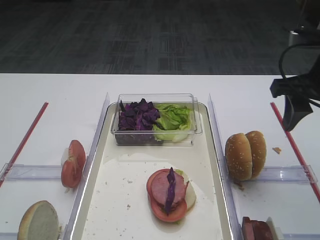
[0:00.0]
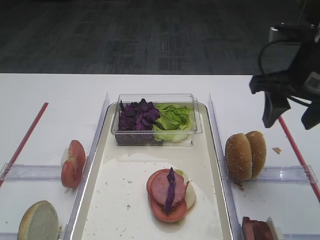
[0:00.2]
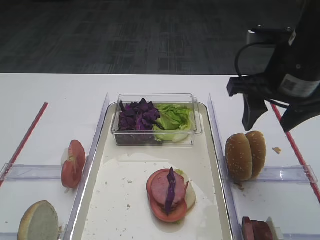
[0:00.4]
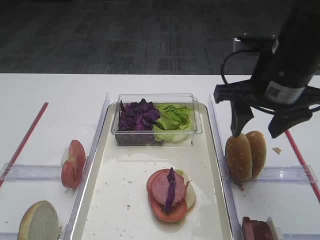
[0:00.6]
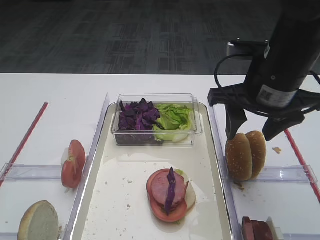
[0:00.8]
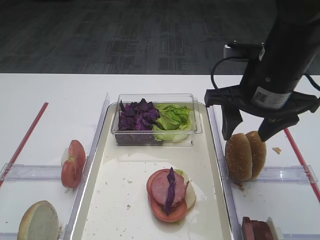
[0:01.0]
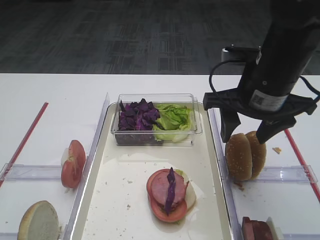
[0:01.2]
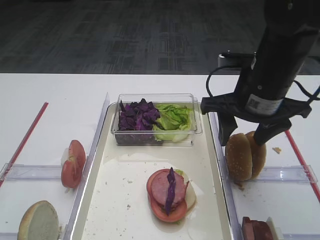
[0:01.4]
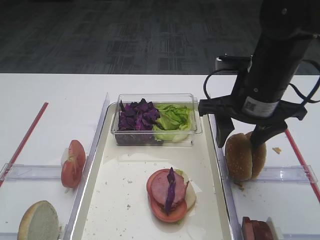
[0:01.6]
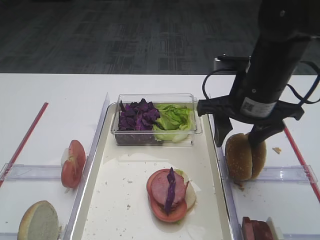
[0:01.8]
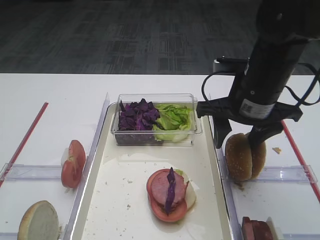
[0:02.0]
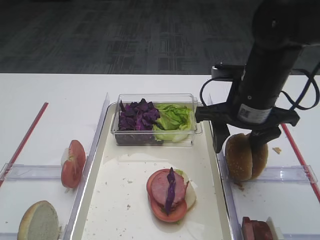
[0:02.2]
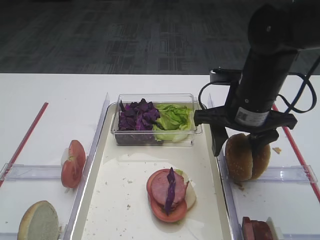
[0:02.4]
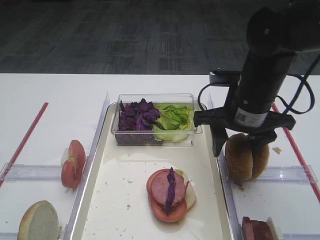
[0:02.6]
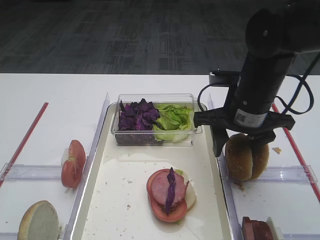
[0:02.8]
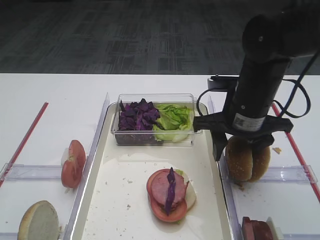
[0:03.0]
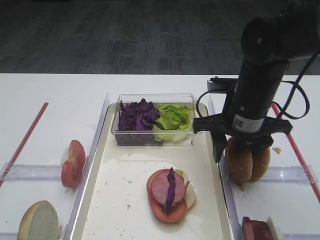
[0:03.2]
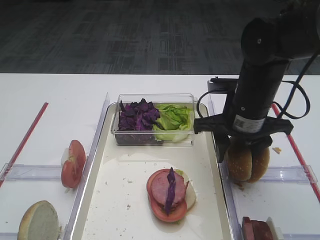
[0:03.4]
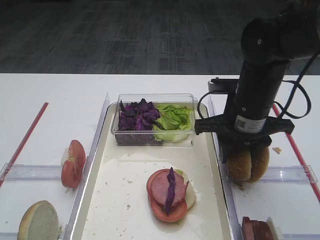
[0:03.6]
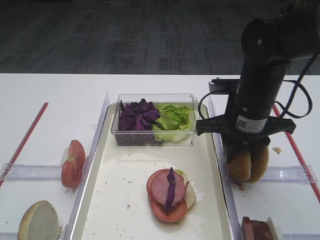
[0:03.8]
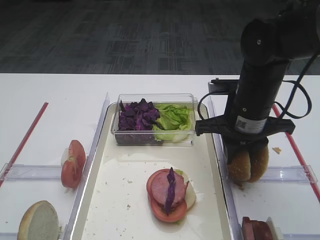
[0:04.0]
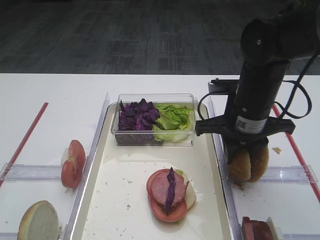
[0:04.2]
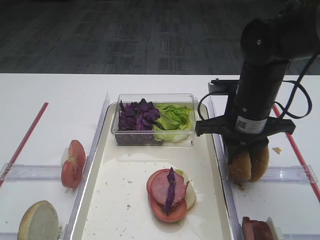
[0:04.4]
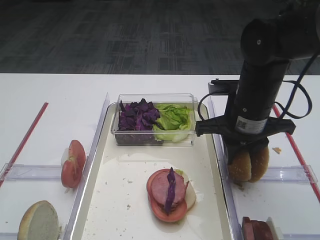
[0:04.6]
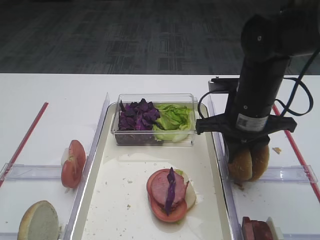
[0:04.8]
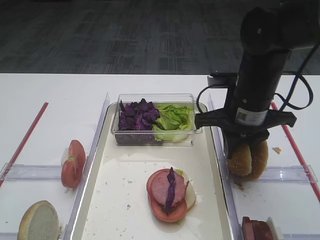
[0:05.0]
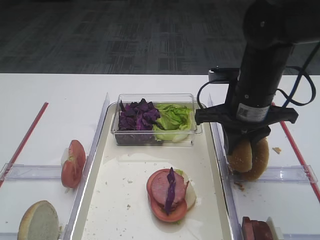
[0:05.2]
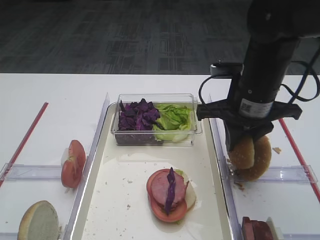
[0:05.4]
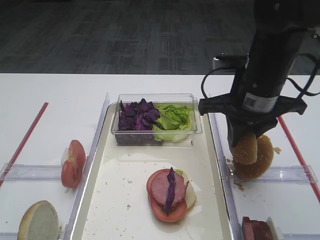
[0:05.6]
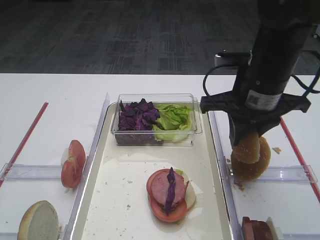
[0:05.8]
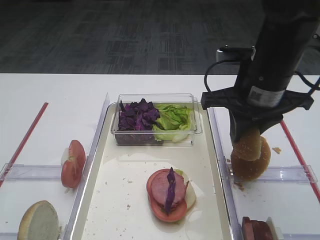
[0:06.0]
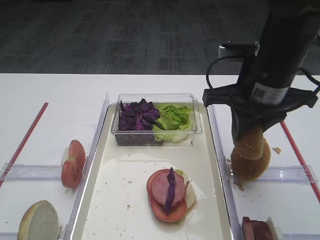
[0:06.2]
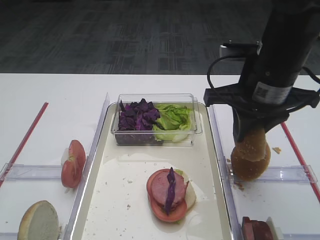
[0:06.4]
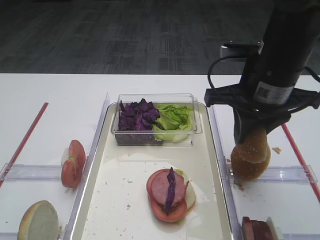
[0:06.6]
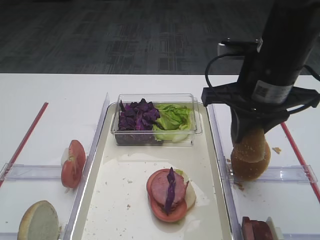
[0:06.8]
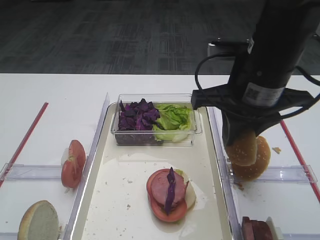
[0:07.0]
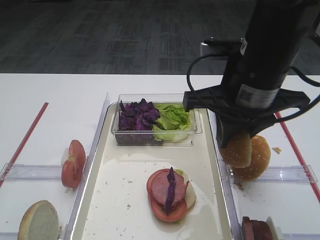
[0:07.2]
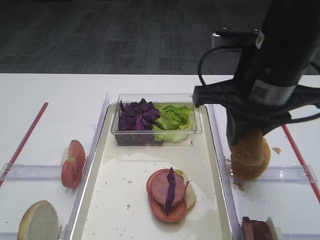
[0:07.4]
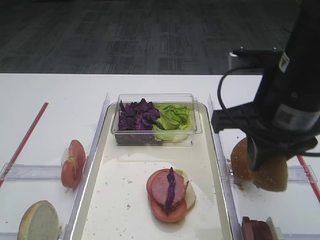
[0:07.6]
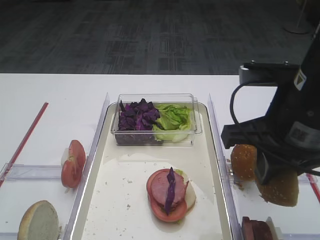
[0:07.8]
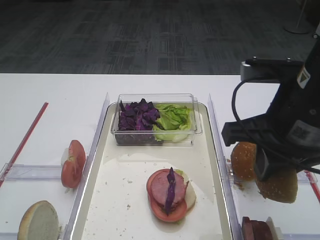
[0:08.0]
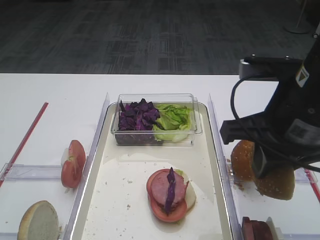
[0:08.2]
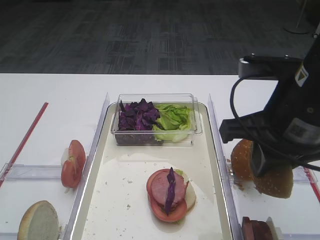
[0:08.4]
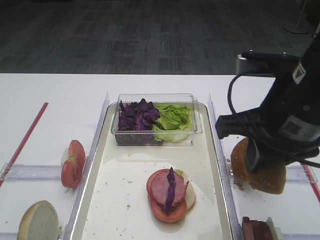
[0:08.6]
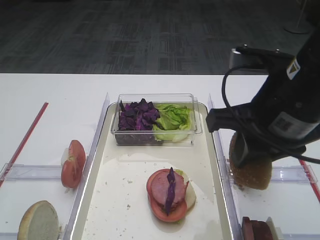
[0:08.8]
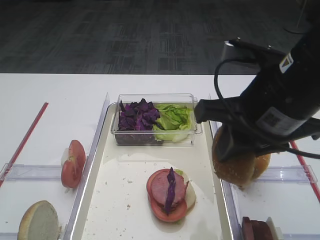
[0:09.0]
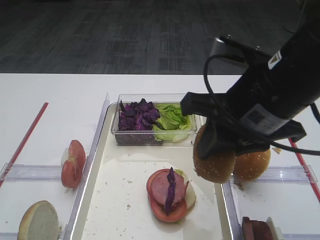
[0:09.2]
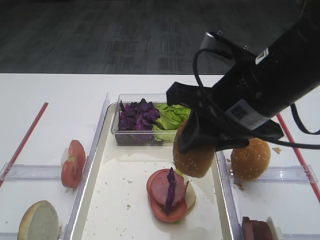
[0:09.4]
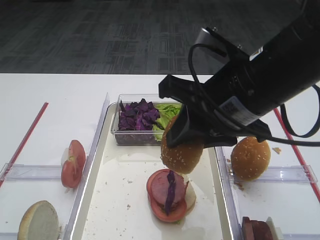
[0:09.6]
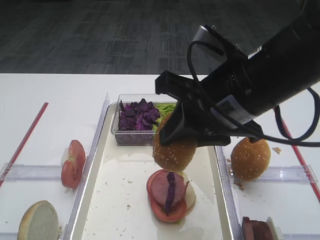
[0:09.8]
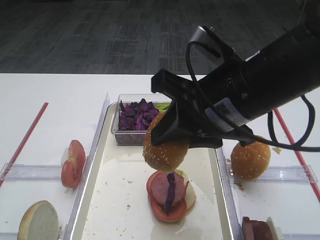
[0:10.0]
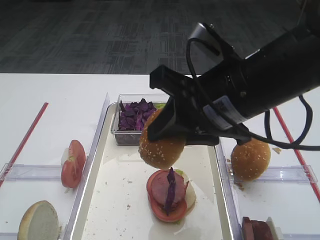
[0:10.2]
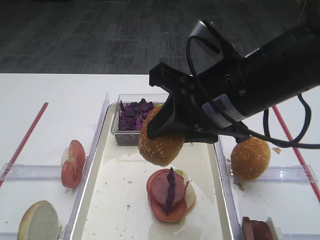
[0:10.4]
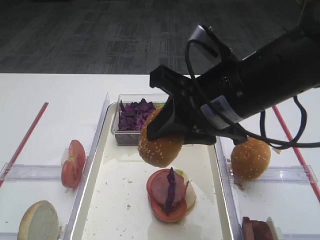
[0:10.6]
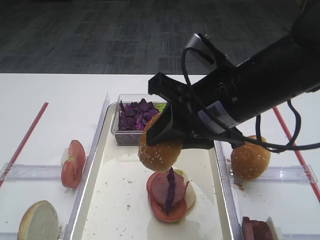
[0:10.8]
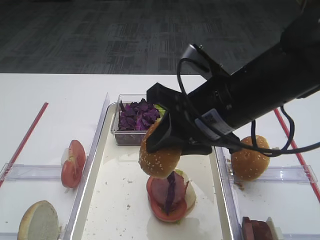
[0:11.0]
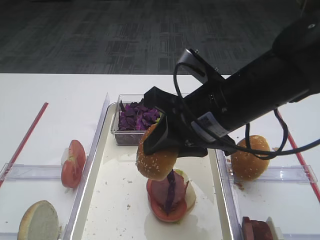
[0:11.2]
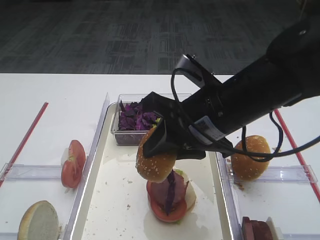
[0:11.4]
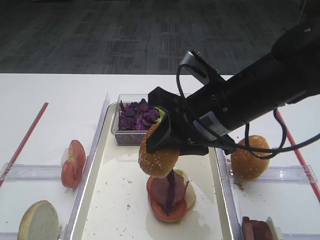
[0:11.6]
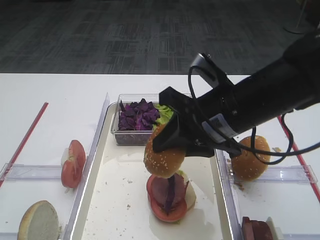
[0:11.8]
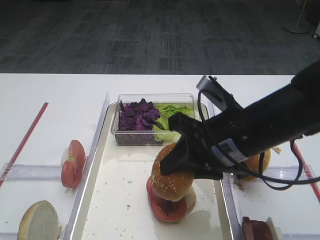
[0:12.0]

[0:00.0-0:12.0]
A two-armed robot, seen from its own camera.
Step, 0:00.0 to 0:06.8: Pick up the hamburger lid with the right gripper.
0:00.0 to 0:01.6: The right gripper goes some 10 cm to the left.
0:01.6 to 0:03.0: There are only small adjustments of the grippers.
0:03.0 to 0:04.4: The right gripper closes its fingers.
0:04.4 to 0:06.0: The right gripper goes about 5 cm upward.
0:06.0 to 0:07.6: The right gripper heads backward, covering roughly 10 cm.
0:07.6 to 0:09.0: The grippers make only small movements.
0:10.4 to 0:12.0: The right gripper travels downward by some 5 cm.

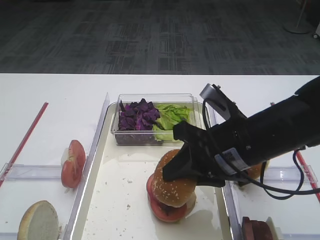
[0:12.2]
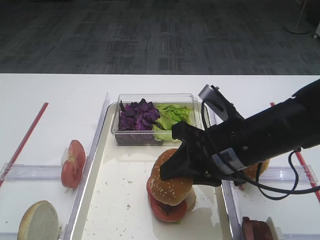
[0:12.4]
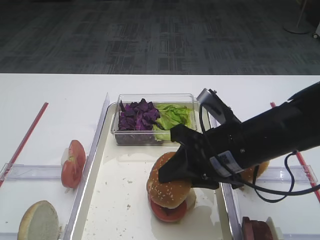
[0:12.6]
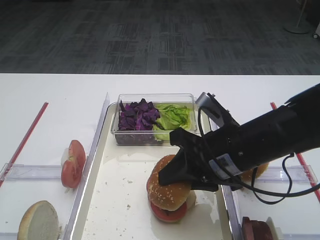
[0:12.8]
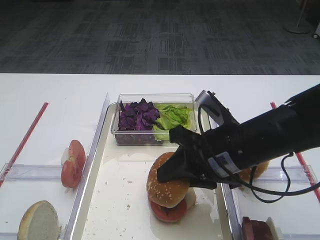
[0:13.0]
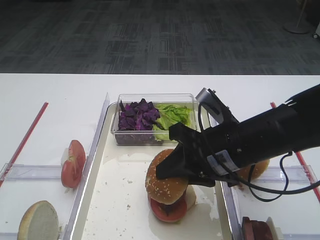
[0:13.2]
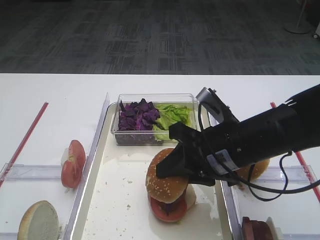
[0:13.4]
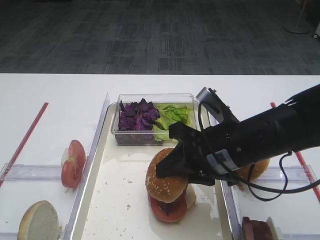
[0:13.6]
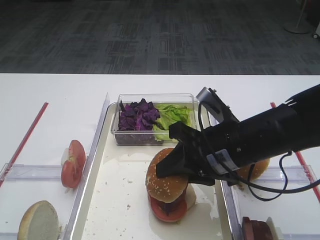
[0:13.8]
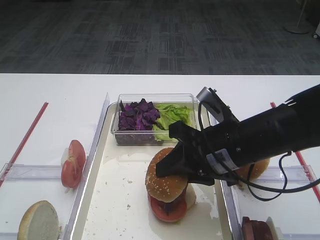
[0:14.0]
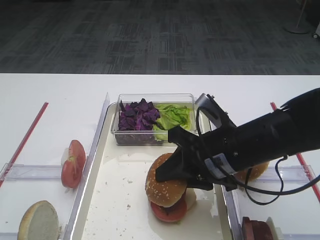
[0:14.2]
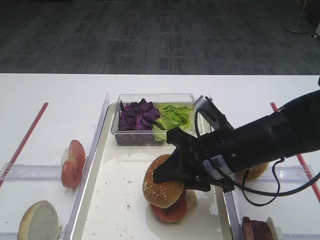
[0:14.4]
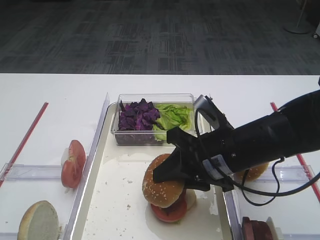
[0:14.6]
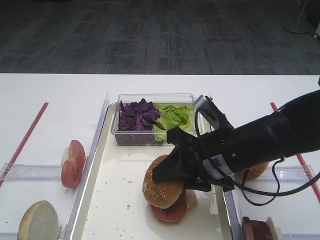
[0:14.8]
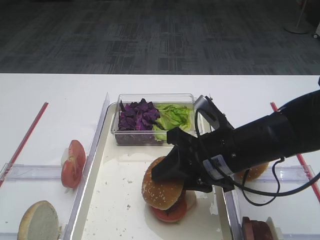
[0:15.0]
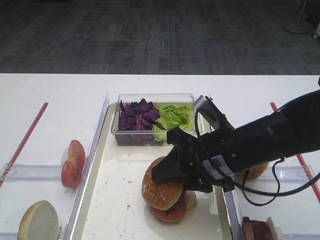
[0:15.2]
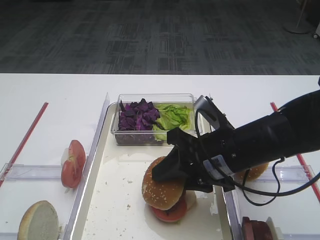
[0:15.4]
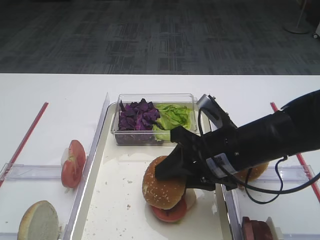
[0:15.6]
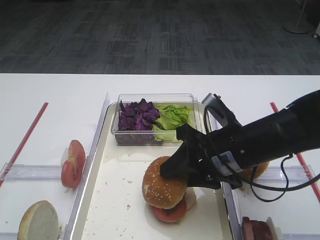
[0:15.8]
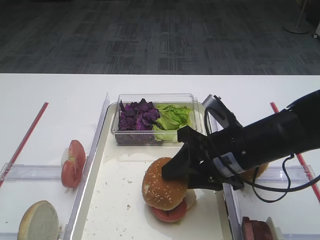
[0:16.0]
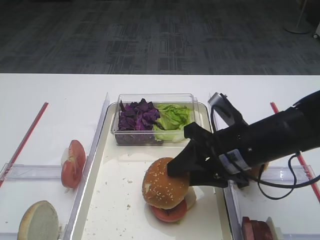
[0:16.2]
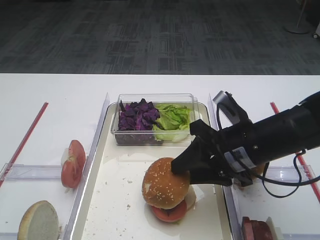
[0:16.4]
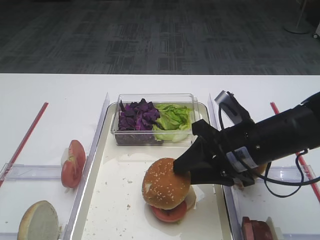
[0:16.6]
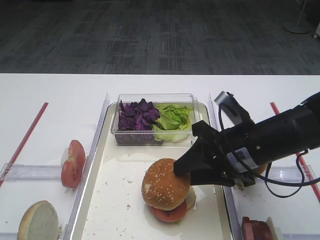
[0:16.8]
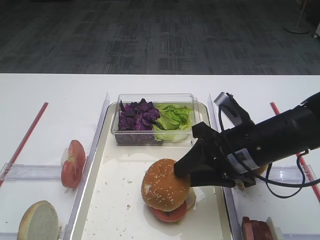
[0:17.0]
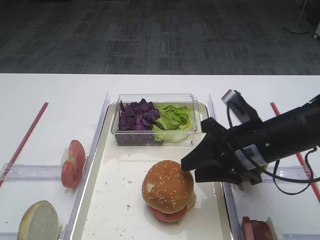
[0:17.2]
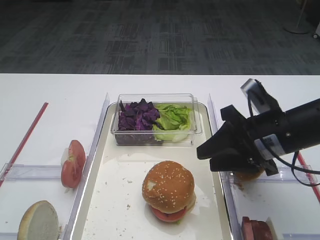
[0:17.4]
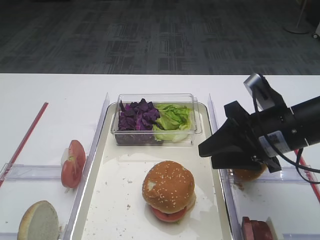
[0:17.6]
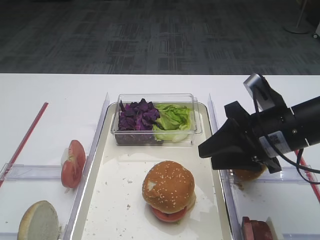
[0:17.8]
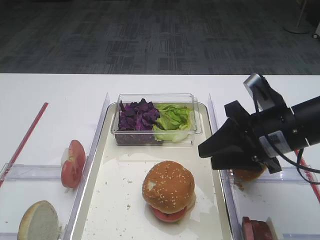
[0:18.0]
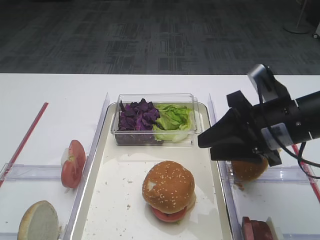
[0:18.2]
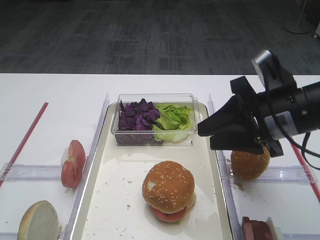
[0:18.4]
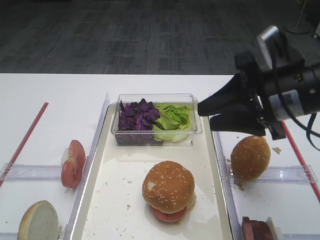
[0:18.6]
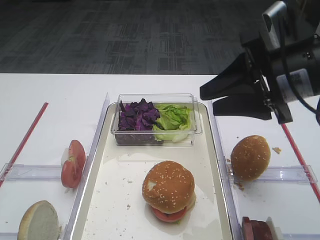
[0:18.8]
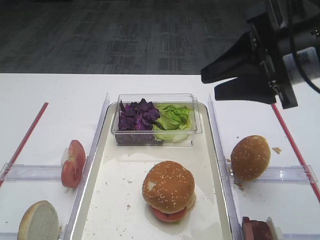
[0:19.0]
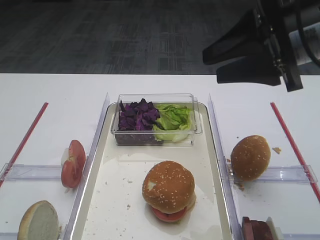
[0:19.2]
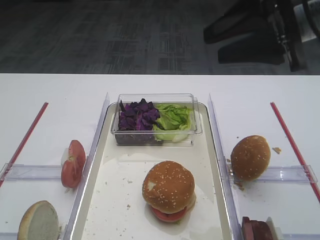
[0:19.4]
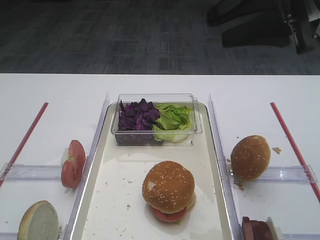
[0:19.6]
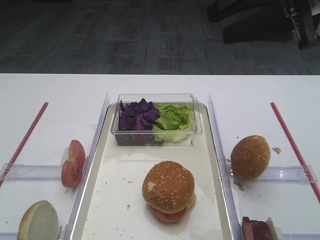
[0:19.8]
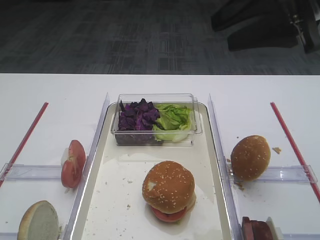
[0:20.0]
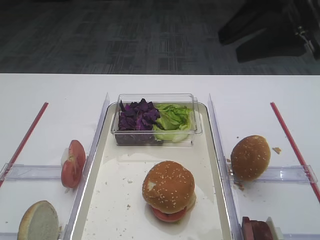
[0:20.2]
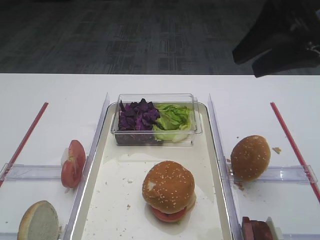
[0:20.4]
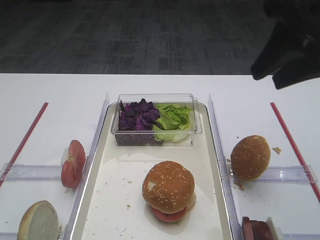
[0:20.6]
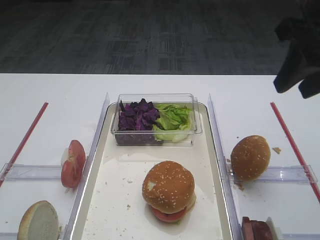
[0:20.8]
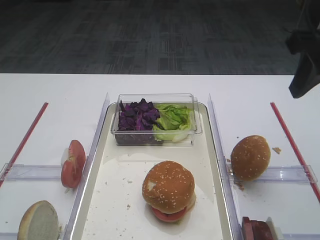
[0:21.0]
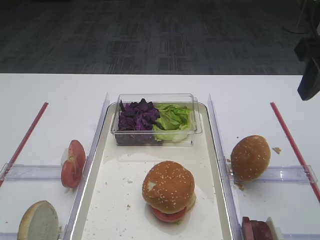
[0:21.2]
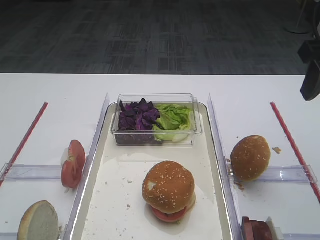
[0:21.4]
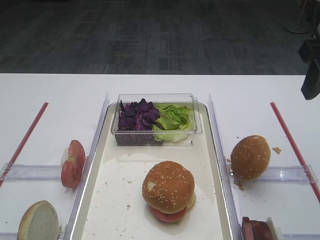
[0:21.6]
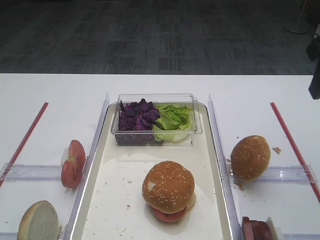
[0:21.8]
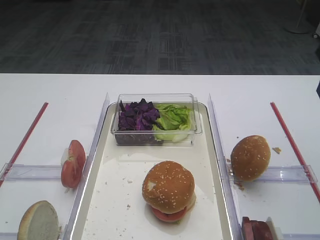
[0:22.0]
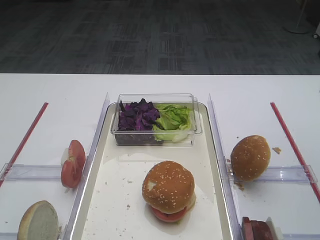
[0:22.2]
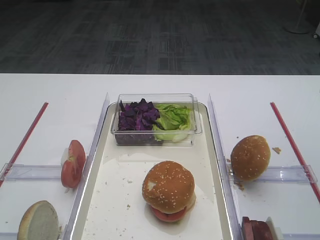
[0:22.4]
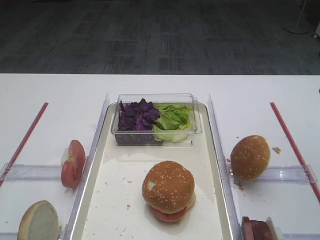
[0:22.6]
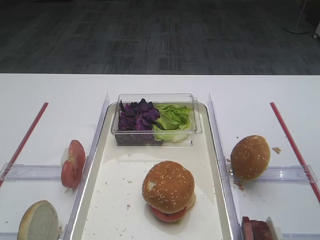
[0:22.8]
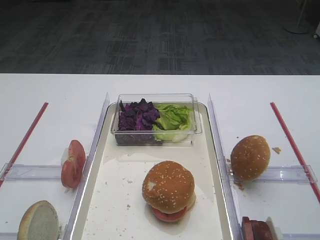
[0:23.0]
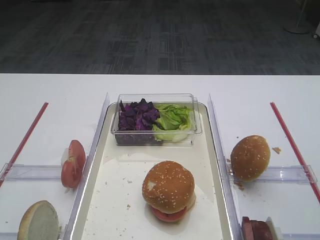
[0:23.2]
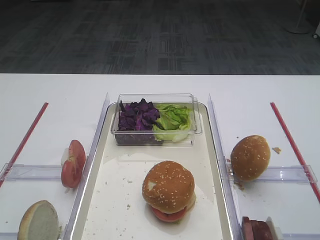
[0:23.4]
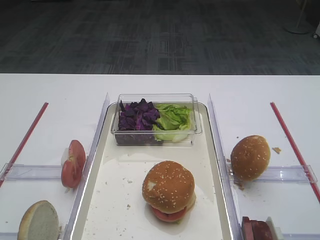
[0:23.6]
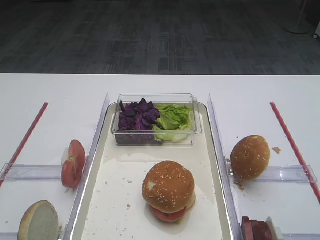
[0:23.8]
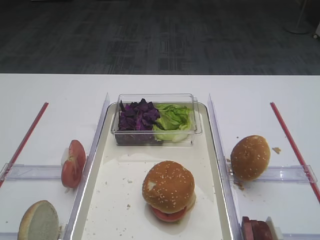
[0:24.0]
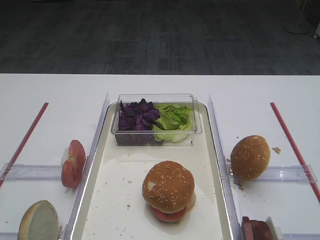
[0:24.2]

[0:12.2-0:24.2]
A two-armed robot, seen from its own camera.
Step, 0:12.2 to 0:17.6: Place the hamburger lid on the purple cabbage with the right gripper.
0:12.2 to 0:16.6: The grippers stay close to where they were, moving slightly.
0:16.6 to 0:18.2: The right gripper changes place by some 5 cm.
0:18.2 to 0:19.8: The right gripper heads upward, covering some 20 cm.
0:19.8 to 0:21.2: The right gripper heads to the right, covering roughly 5 cm.
0:21.2 to 0:22.6: There are only small adjustments of the grippers.
